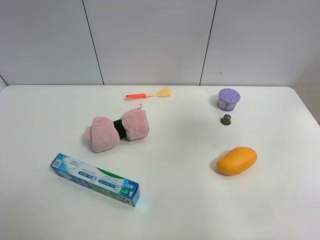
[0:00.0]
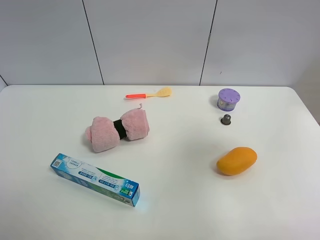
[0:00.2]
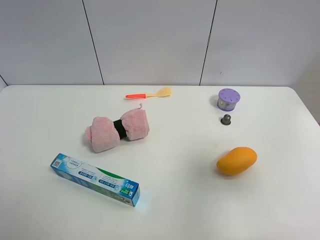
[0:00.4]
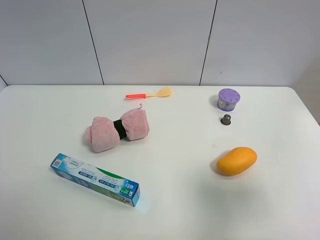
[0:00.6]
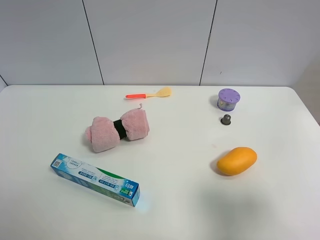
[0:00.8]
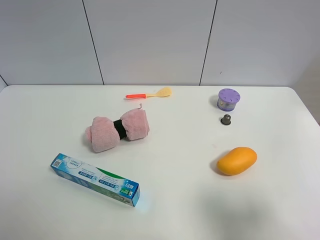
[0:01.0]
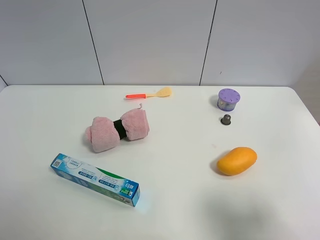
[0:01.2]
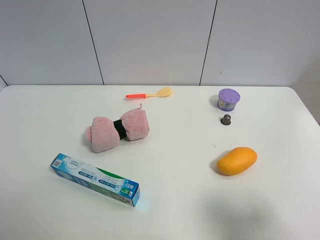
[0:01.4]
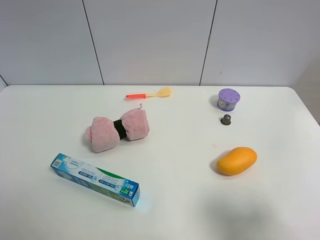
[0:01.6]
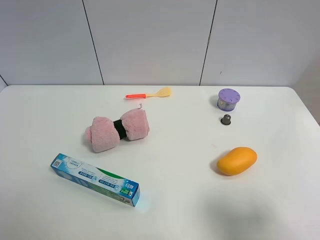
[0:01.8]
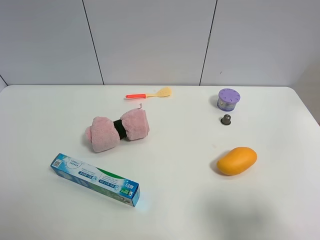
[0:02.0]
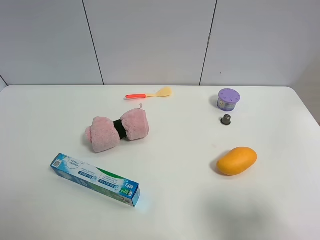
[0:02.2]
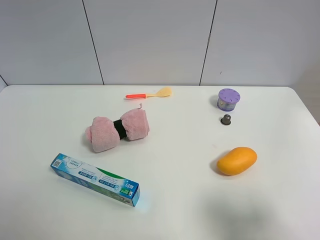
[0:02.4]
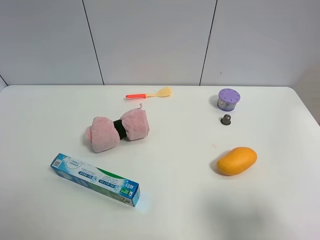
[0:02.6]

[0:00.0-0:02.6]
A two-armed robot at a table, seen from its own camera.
Task of the whole recording: the gripper move the object.
0:00.0 to 0:01.2: The right gripper is displaced backward and downward by about 25 cm.
0:01.2 to 0:02.6: The two grippers keep their place.

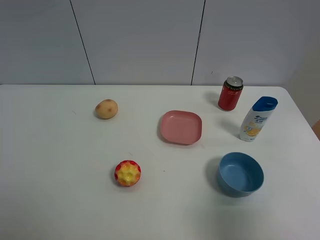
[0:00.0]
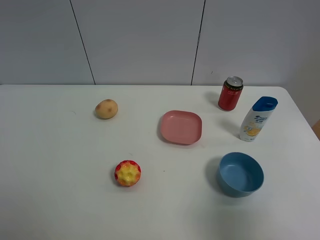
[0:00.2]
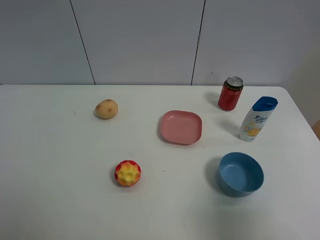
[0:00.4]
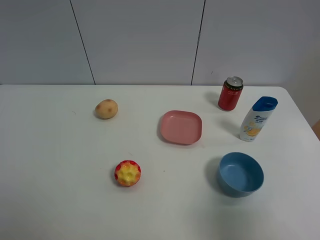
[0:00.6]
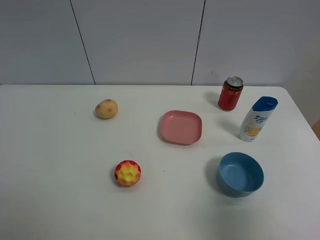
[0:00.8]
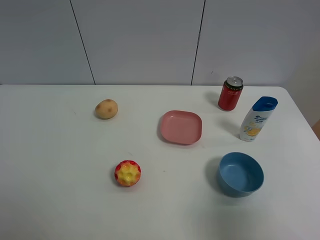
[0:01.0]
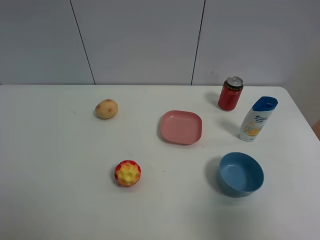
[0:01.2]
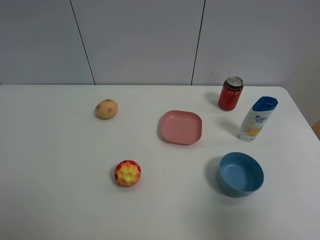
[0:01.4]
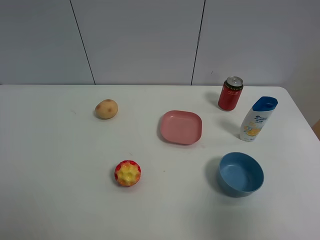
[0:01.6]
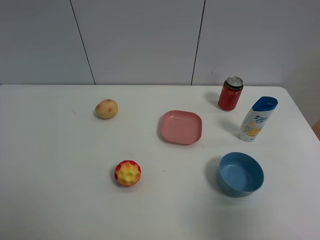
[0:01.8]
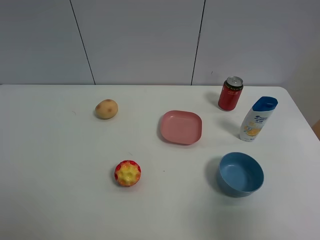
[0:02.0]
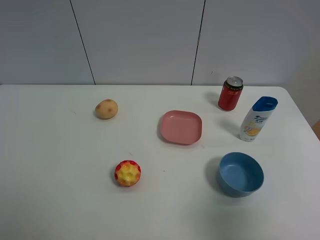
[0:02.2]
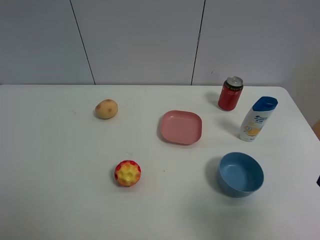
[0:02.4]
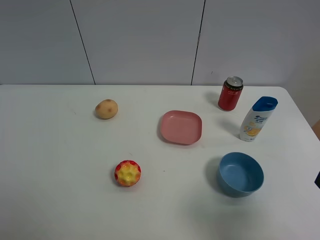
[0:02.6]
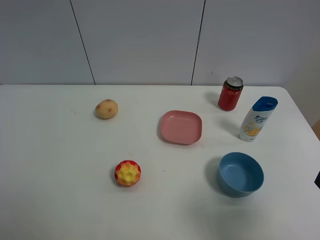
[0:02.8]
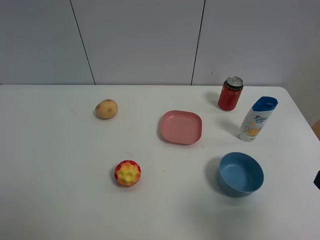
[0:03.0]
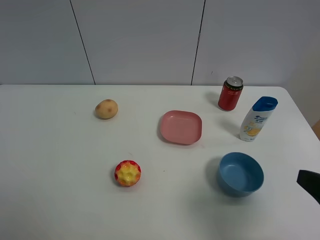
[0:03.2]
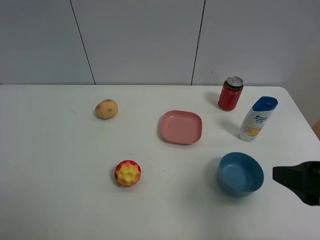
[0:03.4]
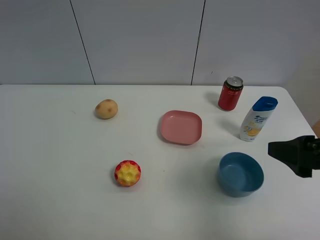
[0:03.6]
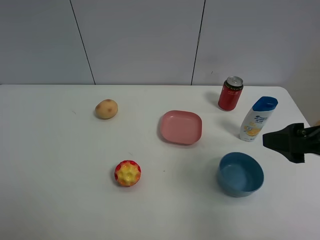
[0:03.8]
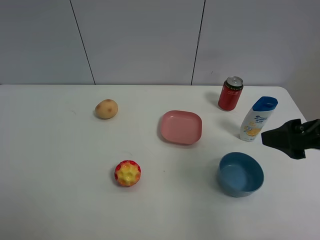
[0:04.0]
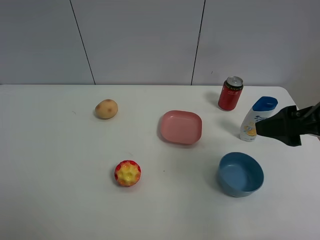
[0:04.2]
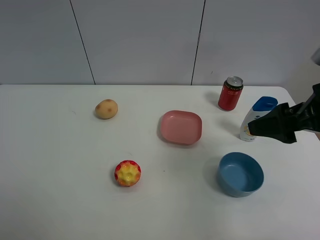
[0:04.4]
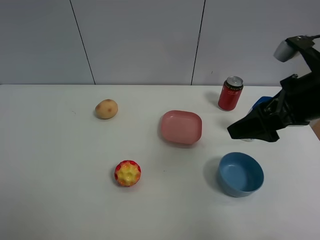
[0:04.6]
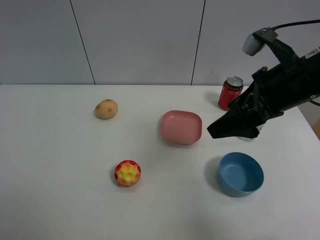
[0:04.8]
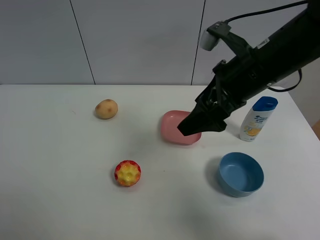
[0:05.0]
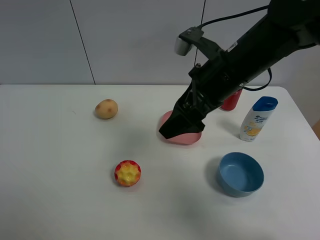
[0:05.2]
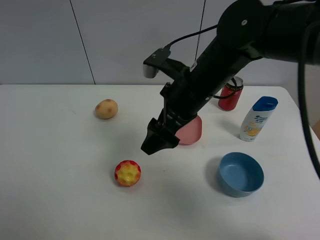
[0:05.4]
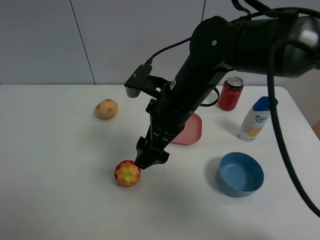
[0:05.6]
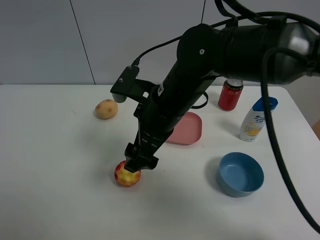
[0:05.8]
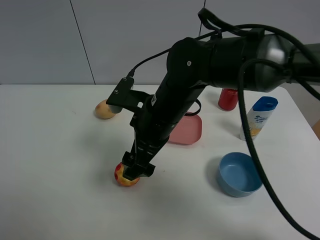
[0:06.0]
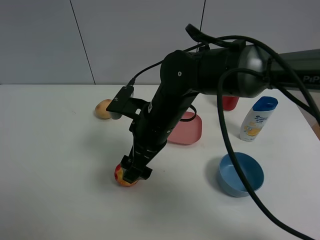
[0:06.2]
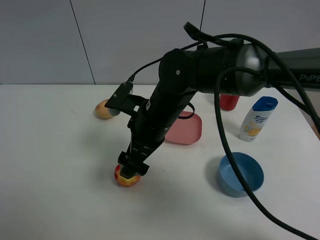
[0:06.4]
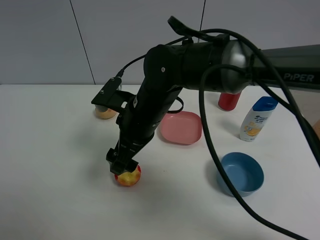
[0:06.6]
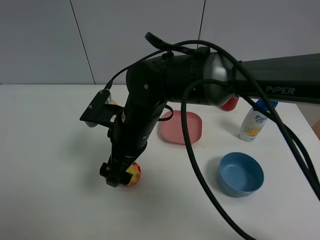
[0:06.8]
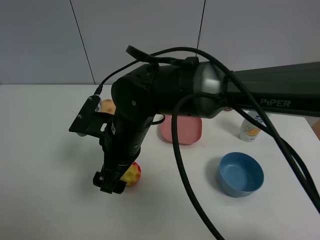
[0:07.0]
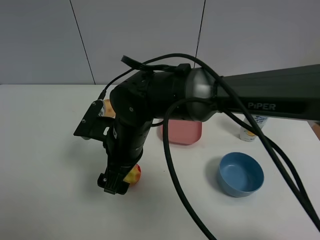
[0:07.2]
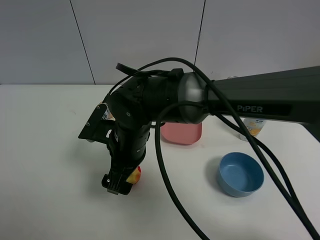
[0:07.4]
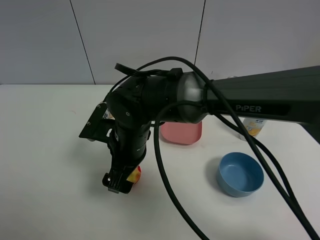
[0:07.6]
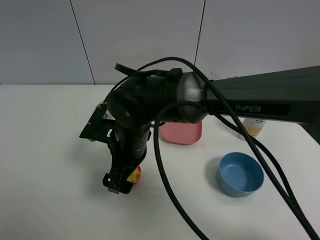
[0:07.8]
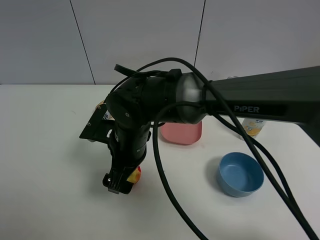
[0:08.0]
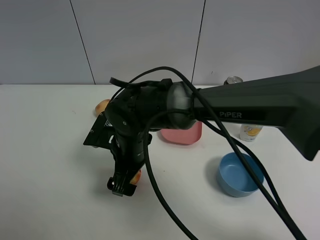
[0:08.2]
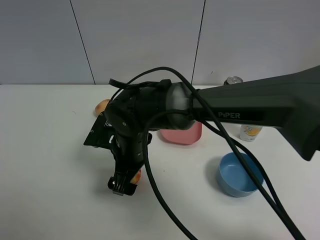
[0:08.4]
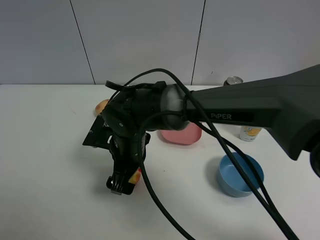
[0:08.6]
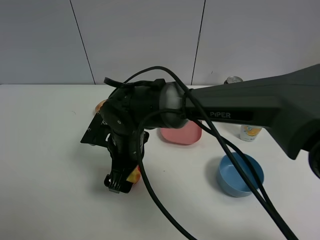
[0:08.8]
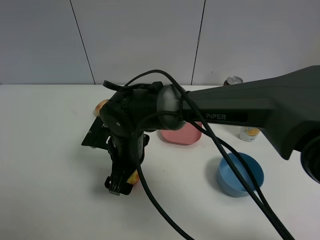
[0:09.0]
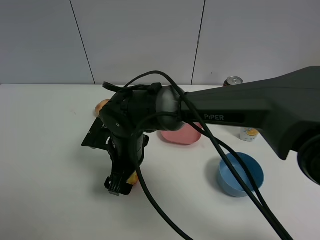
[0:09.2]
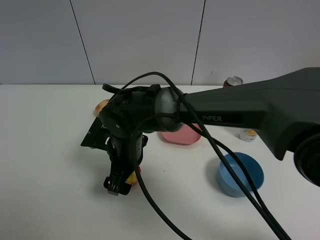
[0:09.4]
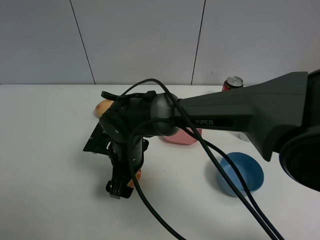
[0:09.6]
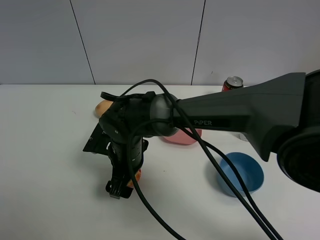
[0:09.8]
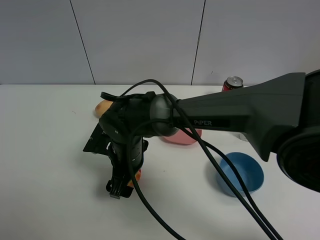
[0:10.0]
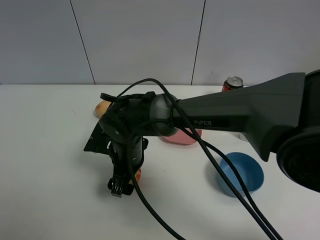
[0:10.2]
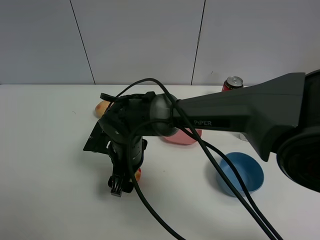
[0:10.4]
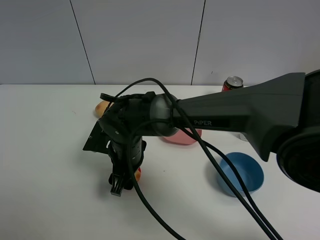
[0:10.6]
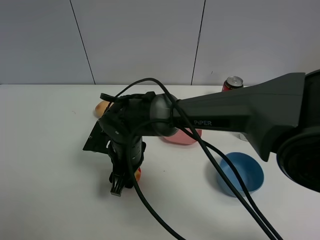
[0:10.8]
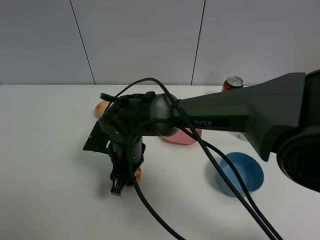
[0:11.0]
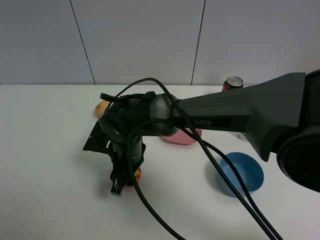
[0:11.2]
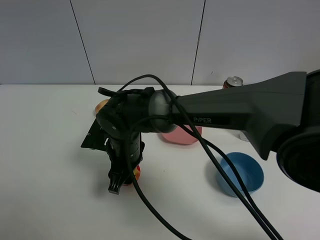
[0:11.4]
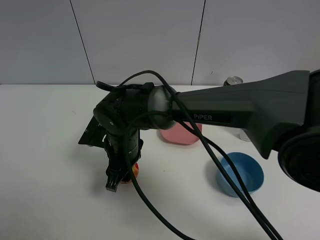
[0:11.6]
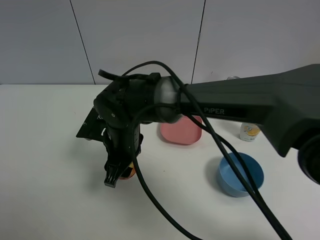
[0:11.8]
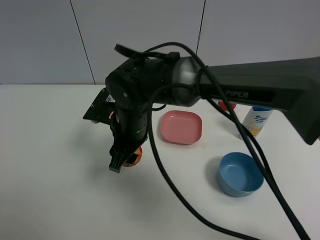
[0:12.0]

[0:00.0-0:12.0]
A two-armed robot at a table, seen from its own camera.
Task of the whole recording: the gripper move the object.
Step, 0:00.0 to 0:11.0: Grasp the colorful ball with the right gripper.
0:03.0 to 0:04.4: The right gripper heads forward, covering some 15 cm.
0:04.4 to 0:06.0: The right gripper goes some 25 cm to the left.
0:06.0 to 0:07.6: The right gripper shifts some 5 cm to the left.
0:07.6 to 0:10.4: The grippers make only small movements.
0:10.4 to 0:12.0: The right gripper travels upward by roughly 5 cm.

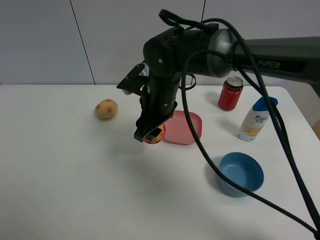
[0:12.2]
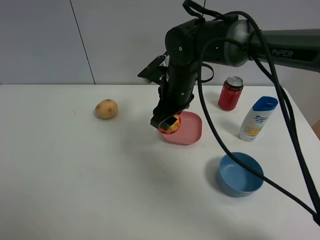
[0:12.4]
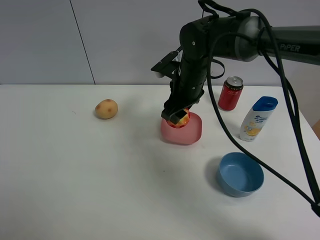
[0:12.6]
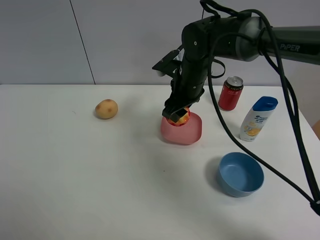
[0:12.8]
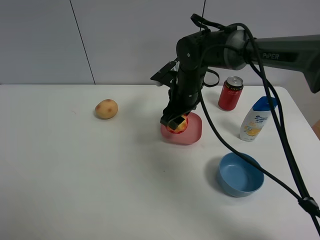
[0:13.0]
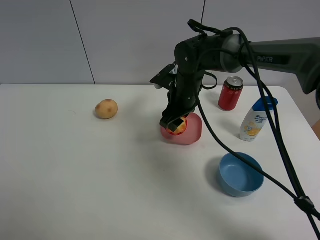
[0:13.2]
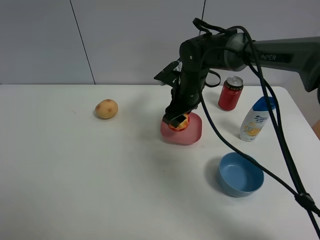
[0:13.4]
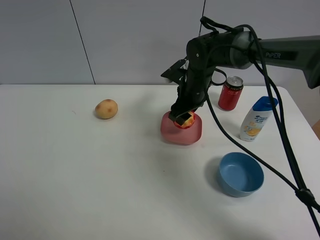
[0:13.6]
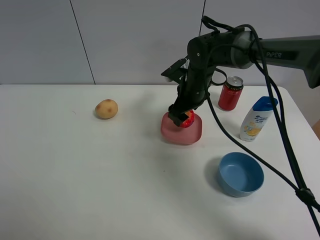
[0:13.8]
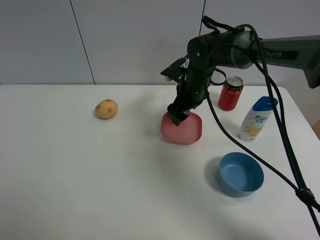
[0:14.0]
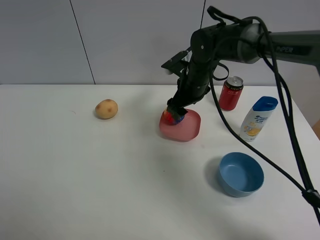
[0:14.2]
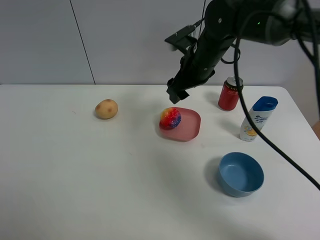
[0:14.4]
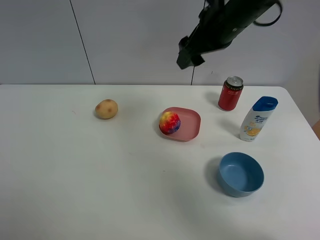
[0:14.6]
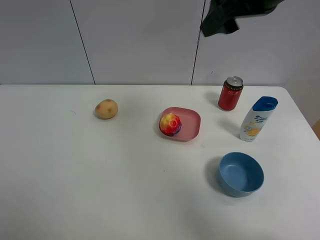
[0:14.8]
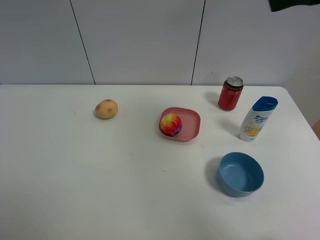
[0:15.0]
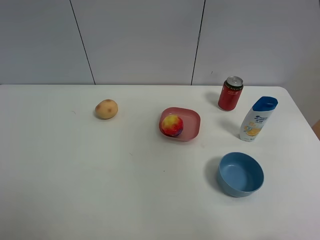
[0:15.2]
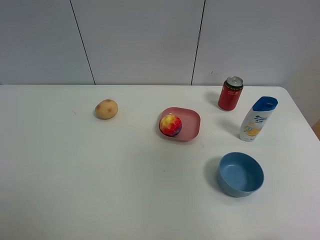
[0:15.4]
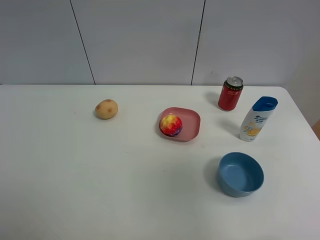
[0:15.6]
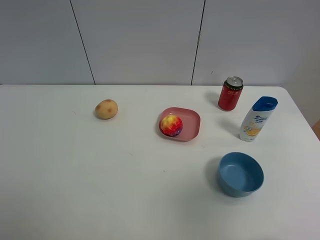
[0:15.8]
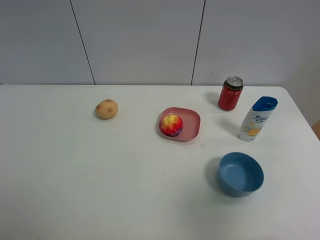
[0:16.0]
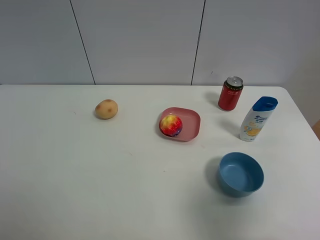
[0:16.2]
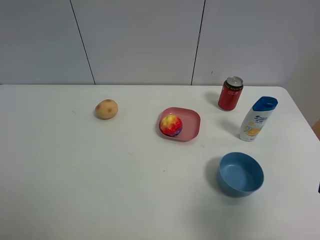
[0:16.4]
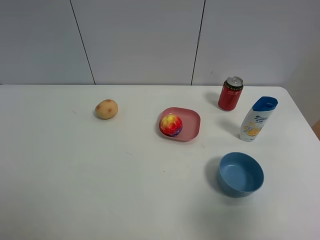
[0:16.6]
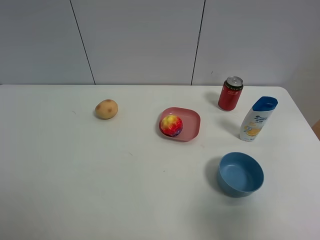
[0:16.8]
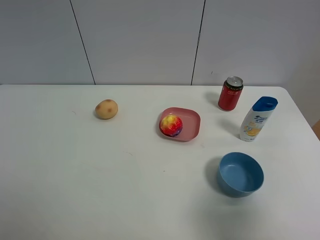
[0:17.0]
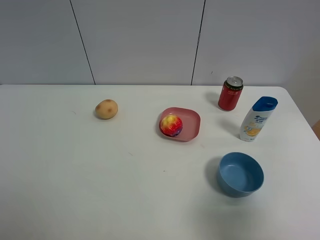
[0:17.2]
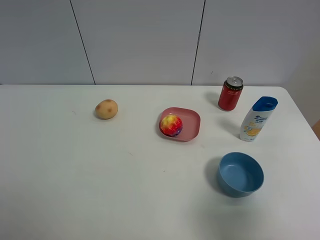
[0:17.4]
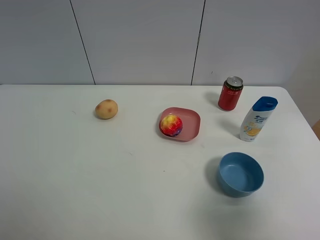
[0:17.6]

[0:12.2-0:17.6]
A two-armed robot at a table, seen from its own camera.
Task of the whole recording: the gripper move the object.
Step, 0:12.2 to 0:14.0: Place the colorful ball into the pink plate with the right gripper.
0:12.2 to 0:13.6: The right gripper moves to the right and forward, about 10 cm.
0:13.6 to 0:15.0: The right gripper heads upward, backward and to the right, covering about 35 cm.
0:15.0 to 0:16.2: The right gripper travels backward and downward by roughly 25 cm.
